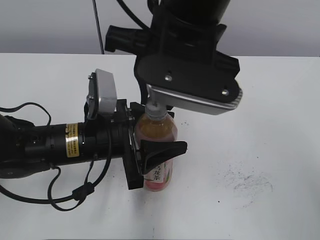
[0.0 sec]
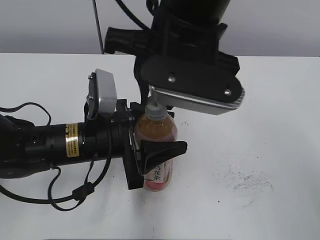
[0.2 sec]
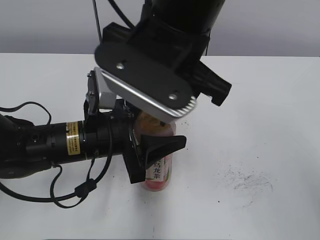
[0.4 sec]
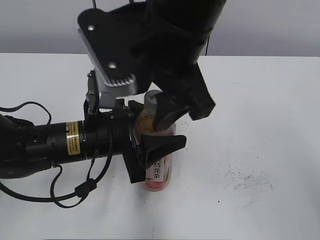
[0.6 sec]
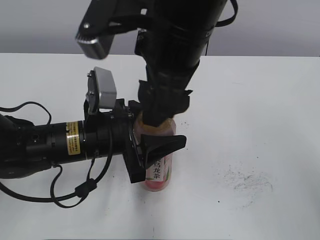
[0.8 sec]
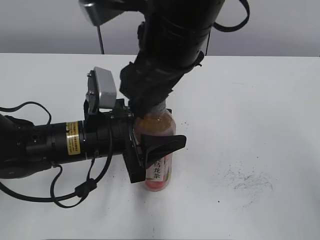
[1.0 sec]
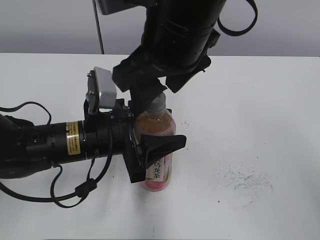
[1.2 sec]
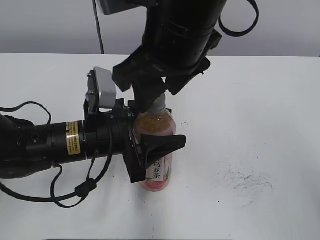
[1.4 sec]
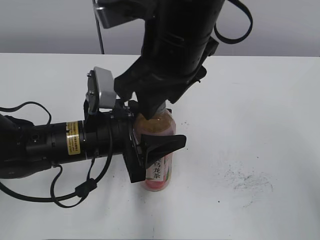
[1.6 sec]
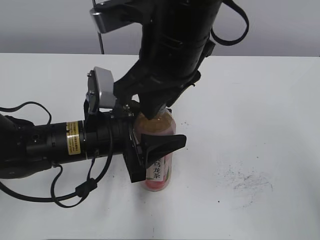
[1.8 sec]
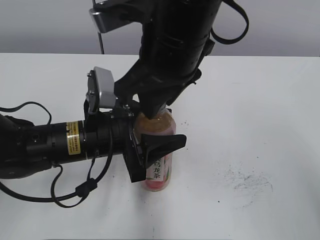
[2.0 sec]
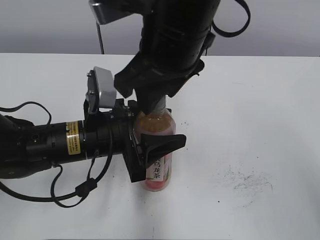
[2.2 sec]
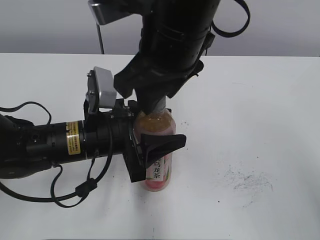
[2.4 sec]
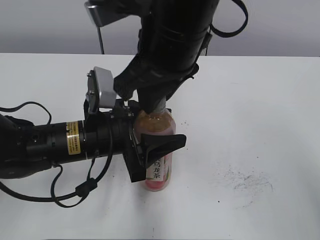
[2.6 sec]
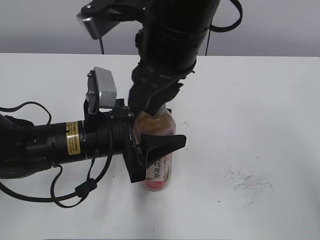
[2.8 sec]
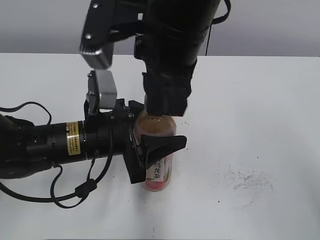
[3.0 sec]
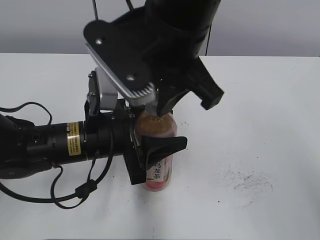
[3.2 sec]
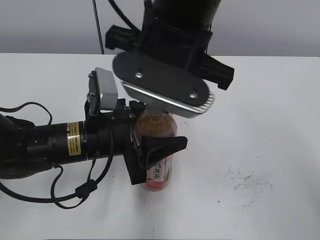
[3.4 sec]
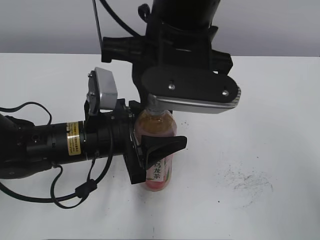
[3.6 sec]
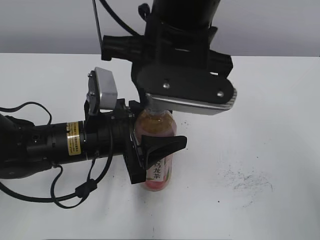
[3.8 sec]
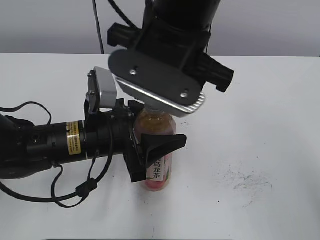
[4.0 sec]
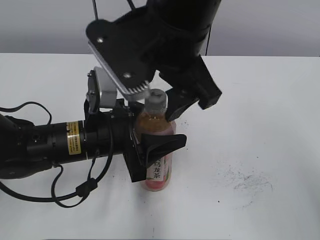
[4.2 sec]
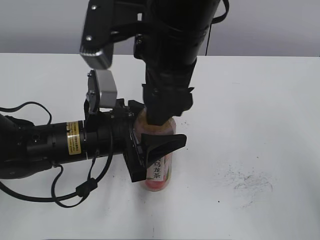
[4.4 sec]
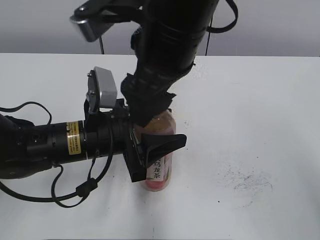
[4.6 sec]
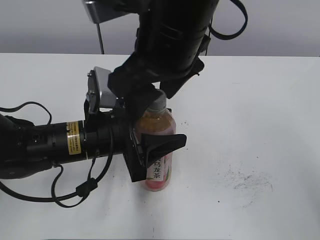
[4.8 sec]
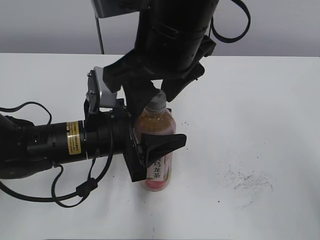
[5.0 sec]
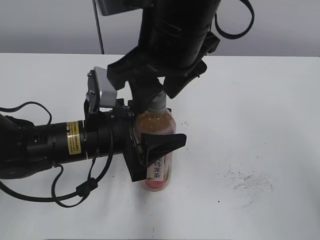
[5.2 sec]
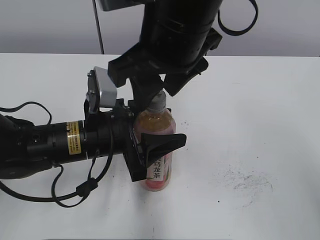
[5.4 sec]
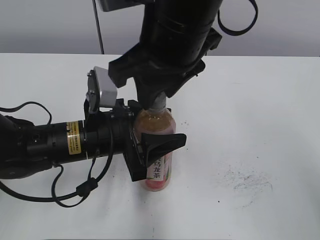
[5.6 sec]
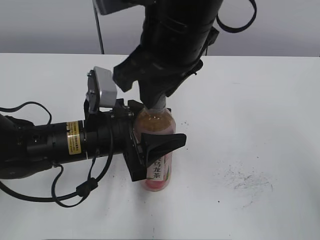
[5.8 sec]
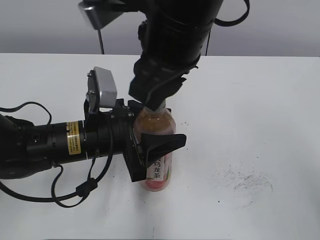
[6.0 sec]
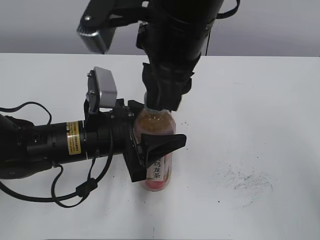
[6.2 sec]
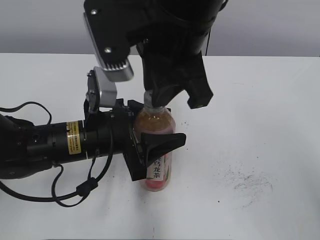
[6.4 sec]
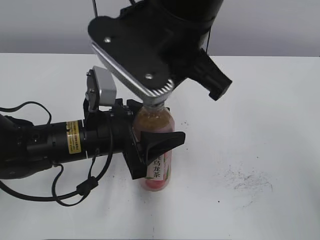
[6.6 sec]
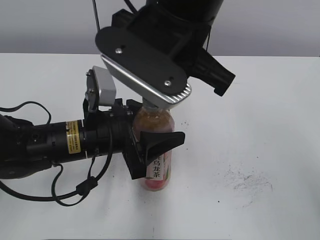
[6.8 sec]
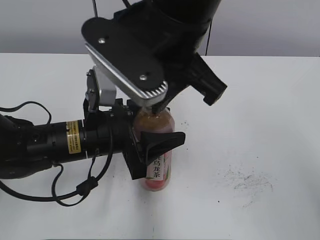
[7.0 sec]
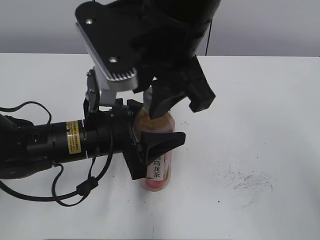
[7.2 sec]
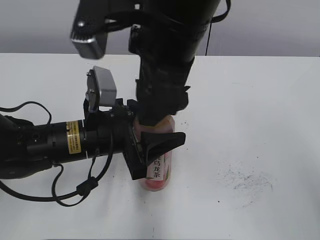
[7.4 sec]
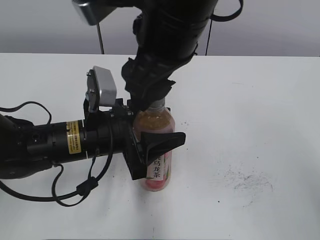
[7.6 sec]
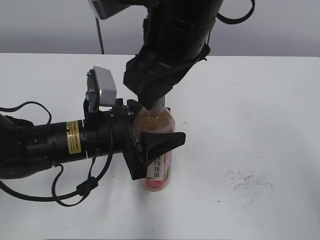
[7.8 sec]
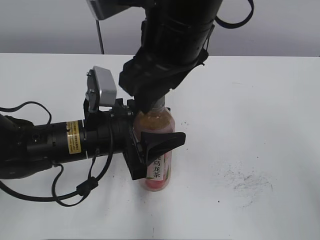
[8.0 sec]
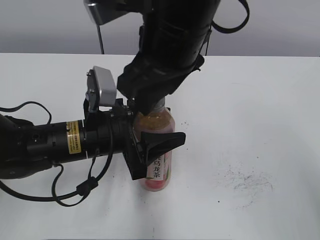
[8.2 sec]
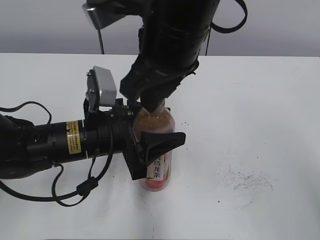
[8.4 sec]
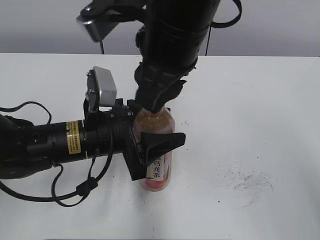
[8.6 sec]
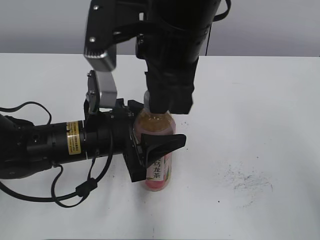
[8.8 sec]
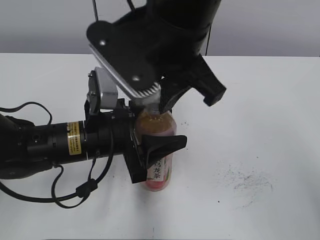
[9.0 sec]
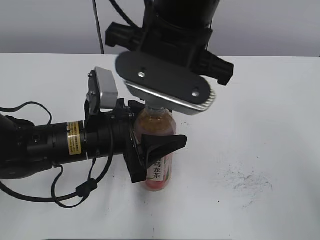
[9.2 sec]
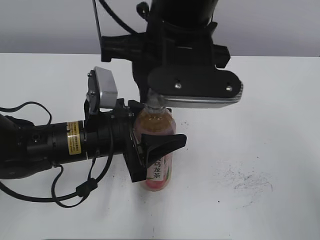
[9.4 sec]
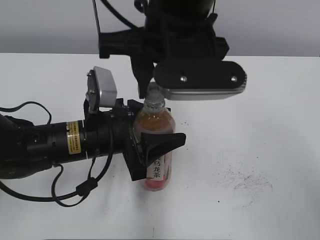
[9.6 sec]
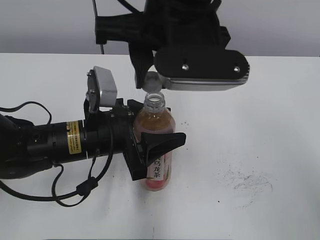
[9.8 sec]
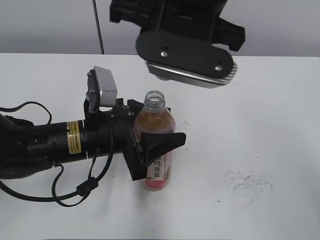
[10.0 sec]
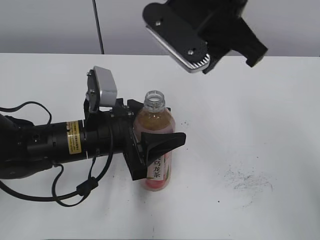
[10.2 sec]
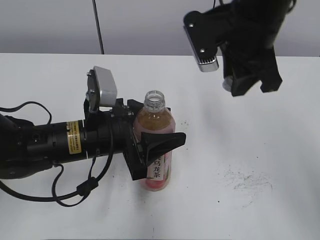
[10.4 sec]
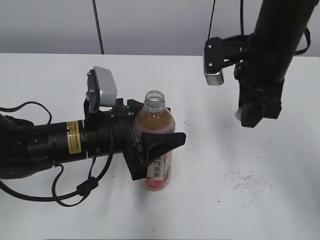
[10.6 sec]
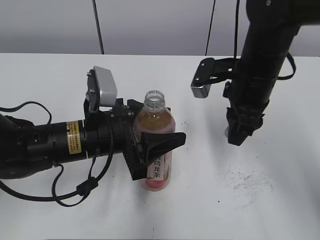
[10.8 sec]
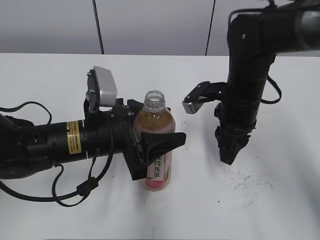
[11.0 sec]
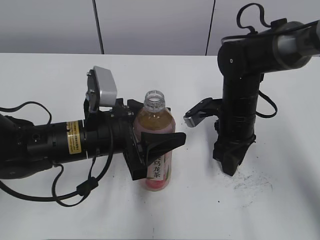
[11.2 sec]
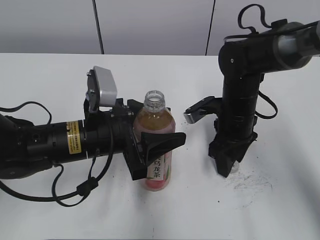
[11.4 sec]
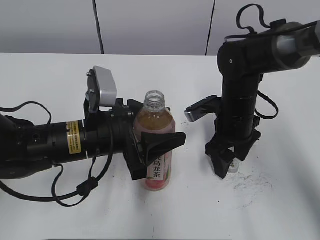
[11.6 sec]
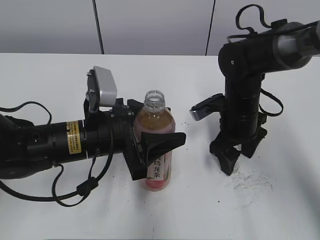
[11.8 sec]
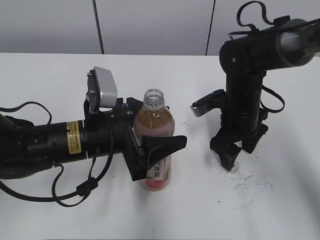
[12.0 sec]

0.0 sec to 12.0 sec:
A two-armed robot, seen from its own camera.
Step, 9.6 sec to 11.6 sec: Place the bottle cap on the right.
0.0 sec to 1.6 sec: The right gripper opens up.
1.6 sec to 3.0 sec: The right gripper closes its fingers.
3.0 sec to 4.4 sec: The right gripper opens its fingers.
4.4 sec to 6.0 sec: The right gripper closes.
6.0 sec to 7.6 sec: The right gripper opens.
7.6 sec to 9.0 sec: The right gripper closes its fingers.
9.0 sec to 10.4 sec: The right gripper is displaced to the right and forward by some 10 cm.
10.4 sec to 12.0 sec: The left gripper opens up, while the right gripper is displaced downward by approximately 20 cm, and opens up.

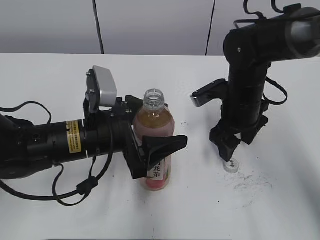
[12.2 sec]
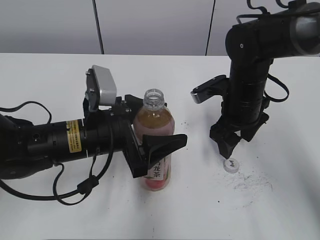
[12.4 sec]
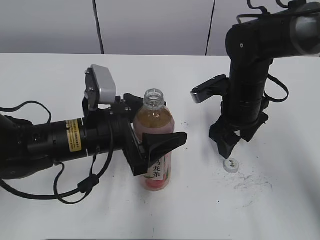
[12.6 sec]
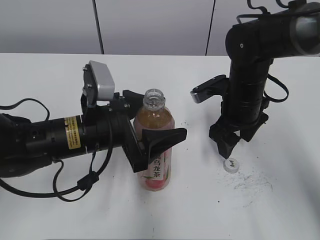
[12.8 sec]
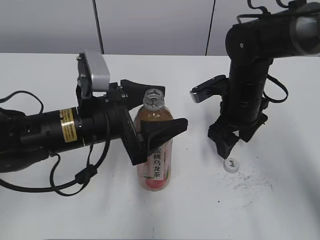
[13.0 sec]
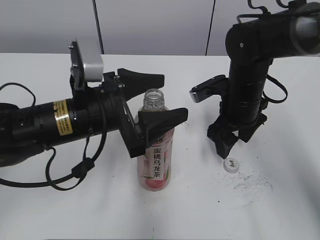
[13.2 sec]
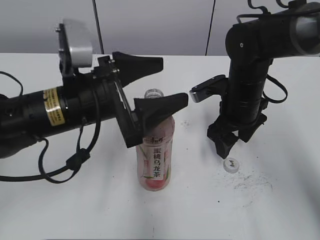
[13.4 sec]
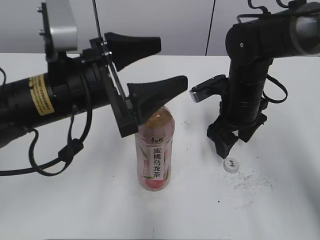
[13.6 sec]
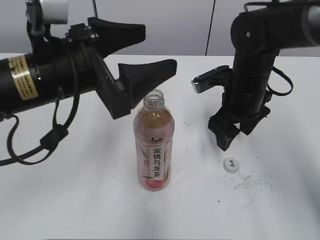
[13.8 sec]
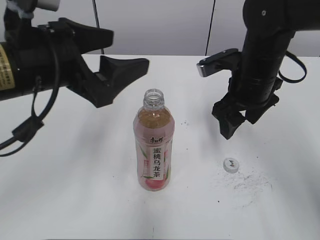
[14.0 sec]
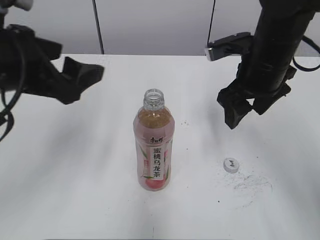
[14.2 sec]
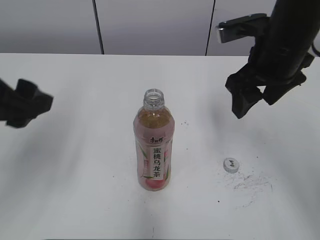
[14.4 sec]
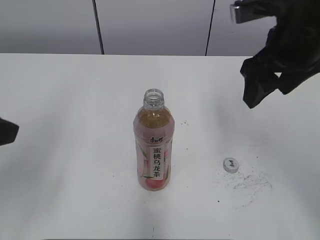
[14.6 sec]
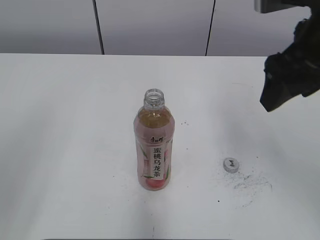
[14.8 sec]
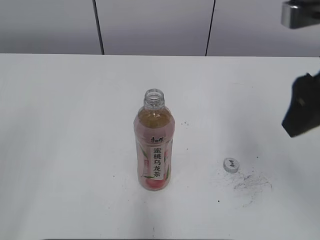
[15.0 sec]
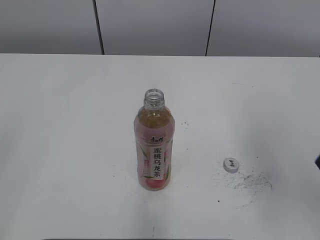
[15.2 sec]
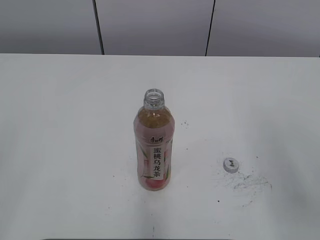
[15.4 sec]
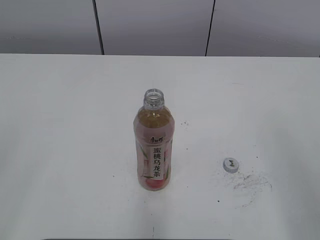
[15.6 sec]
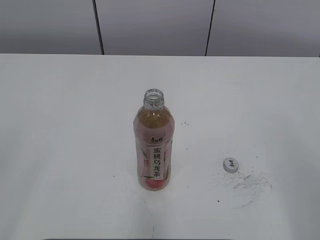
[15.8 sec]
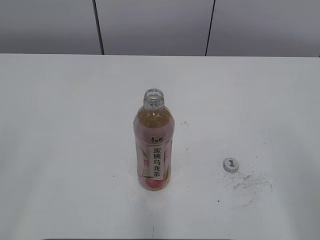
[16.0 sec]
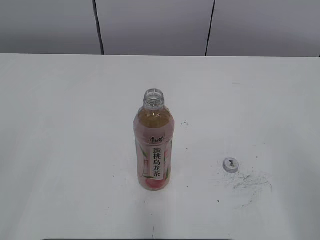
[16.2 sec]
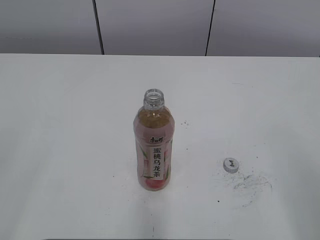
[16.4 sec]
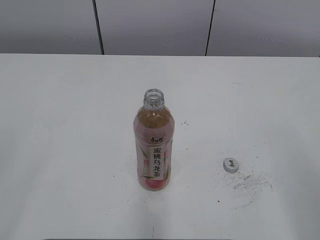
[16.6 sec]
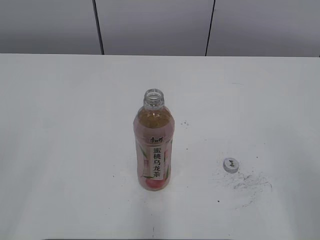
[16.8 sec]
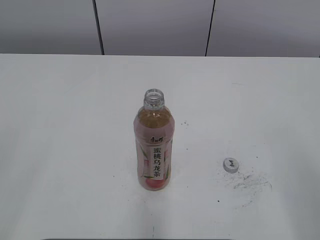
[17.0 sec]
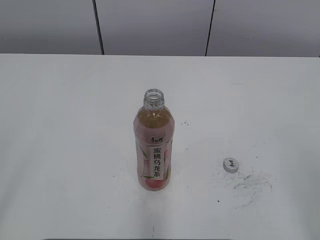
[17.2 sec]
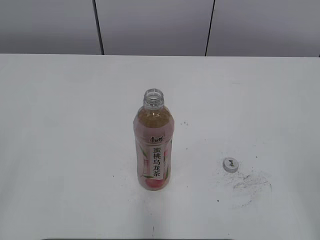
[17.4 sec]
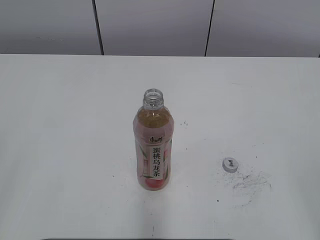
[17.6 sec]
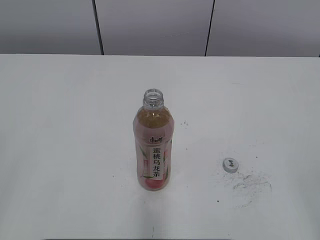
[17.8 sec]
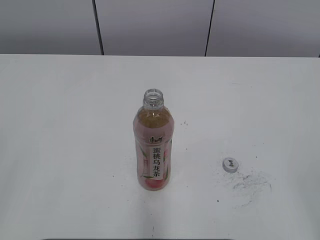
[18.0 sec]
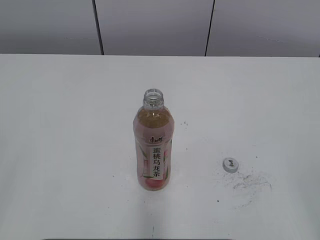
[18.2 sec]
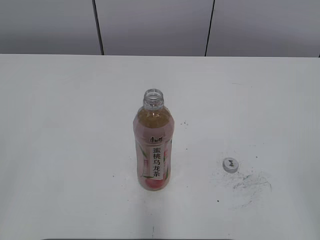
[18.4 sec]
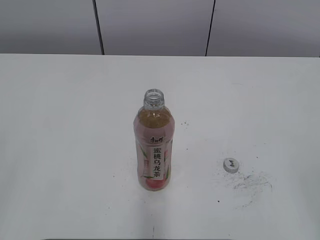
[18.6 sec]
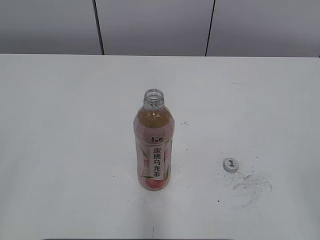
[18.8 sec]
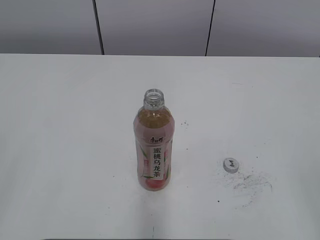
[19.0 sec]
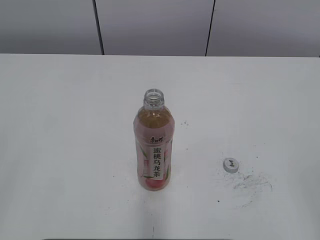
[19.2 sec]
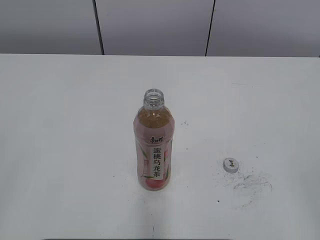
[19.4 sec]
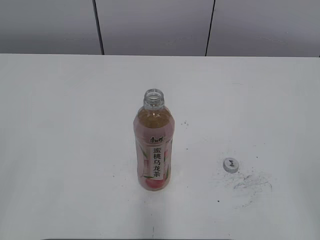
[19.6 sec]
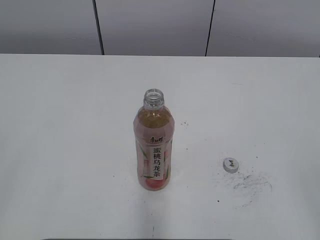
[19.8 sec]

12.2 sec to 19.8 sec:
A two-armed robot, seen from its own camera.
12.2 sec to 13.8 sec: The left gripper travels upward by approximately 10 cm.
13.8 sec to 15.2 sec: The right gripper shifts roughly 25 cm backward, upward and to the right. Meanwhile the left gripper goes approximately 30 cm backward and to the left.
15.2 sec to 16.8 sec: The right gripper travels backward and to the right by approximately 15 cm.
